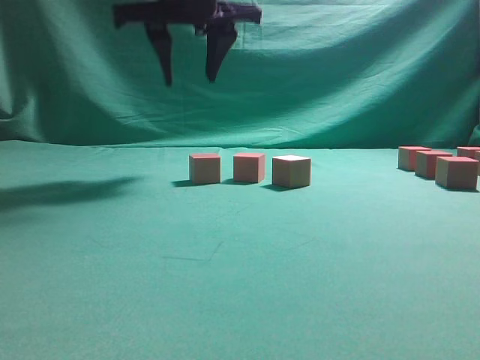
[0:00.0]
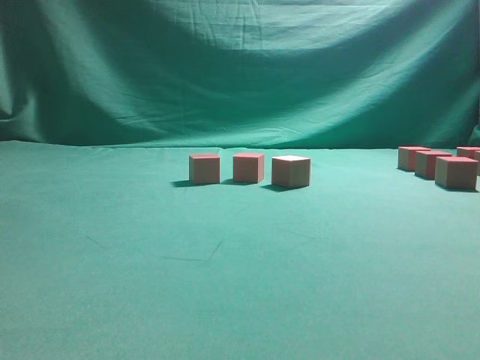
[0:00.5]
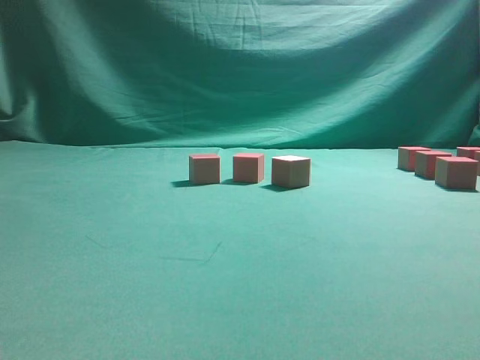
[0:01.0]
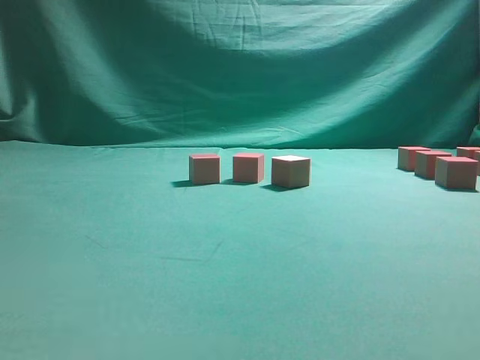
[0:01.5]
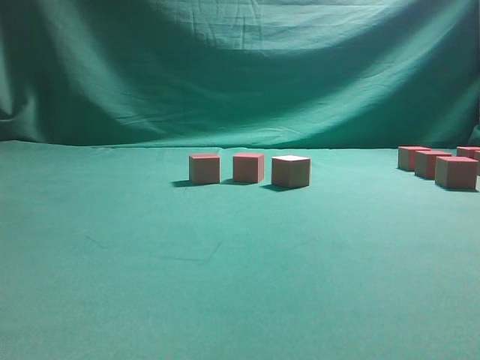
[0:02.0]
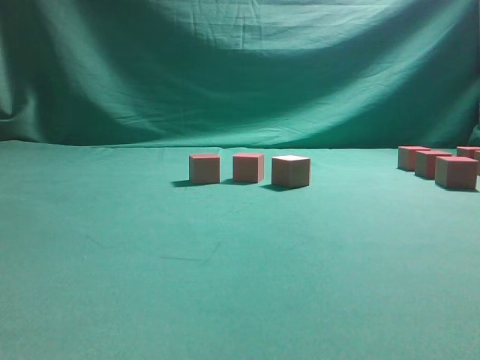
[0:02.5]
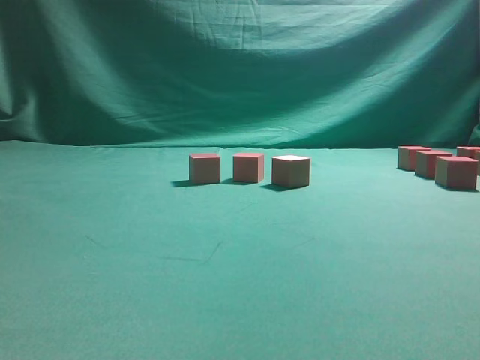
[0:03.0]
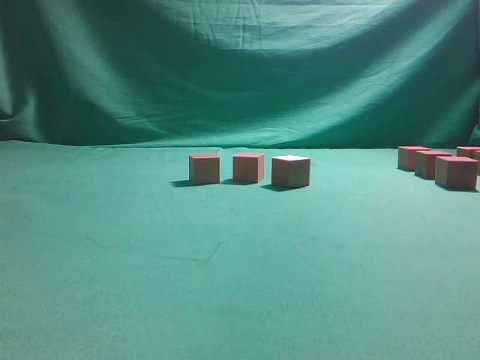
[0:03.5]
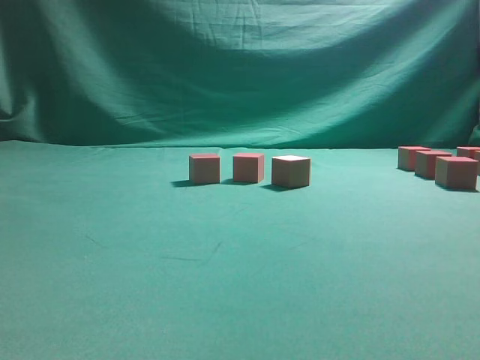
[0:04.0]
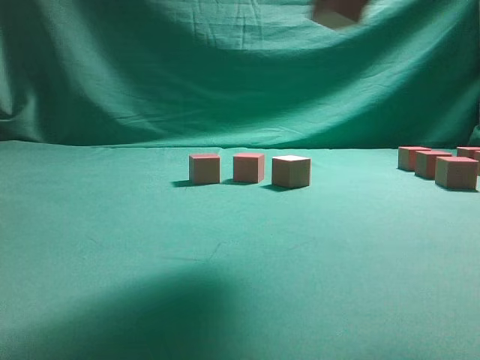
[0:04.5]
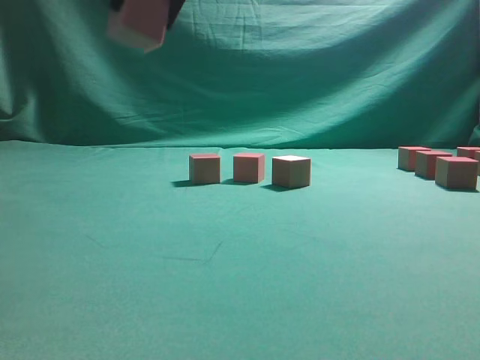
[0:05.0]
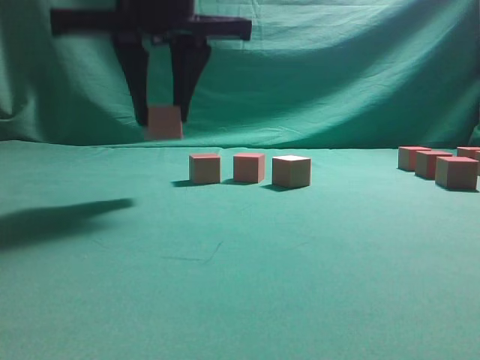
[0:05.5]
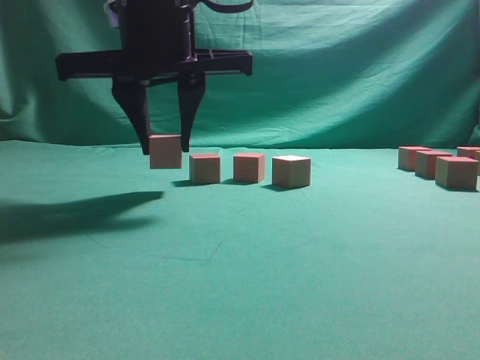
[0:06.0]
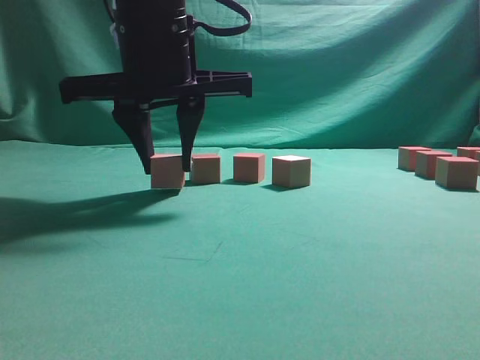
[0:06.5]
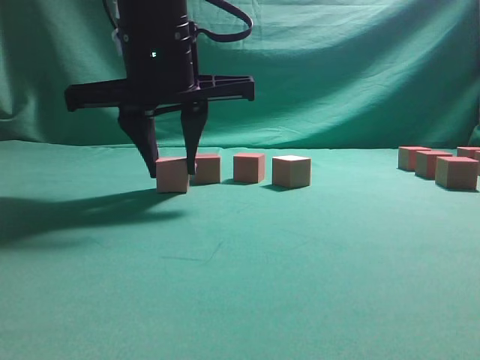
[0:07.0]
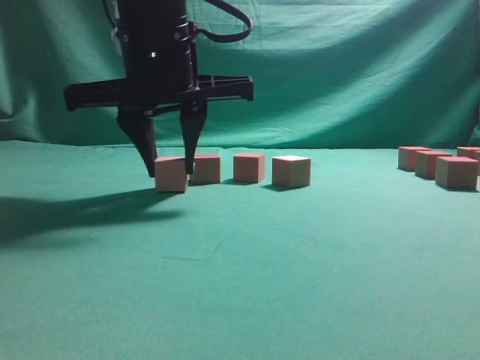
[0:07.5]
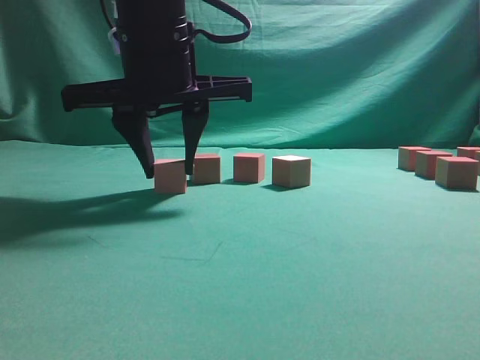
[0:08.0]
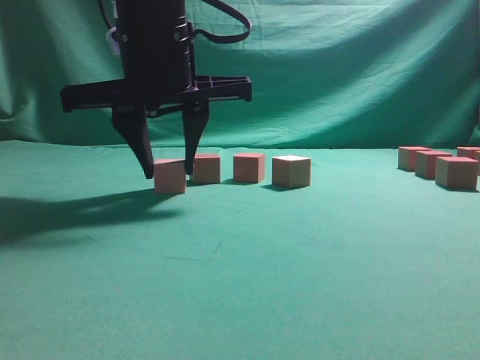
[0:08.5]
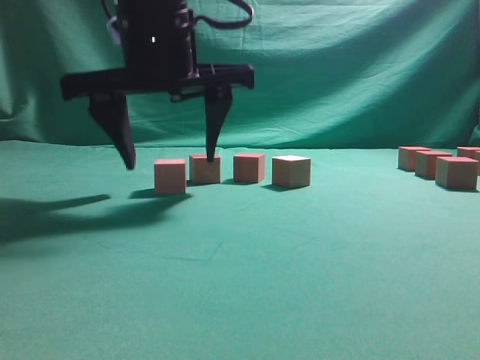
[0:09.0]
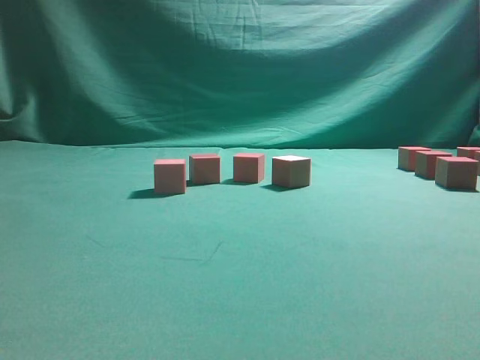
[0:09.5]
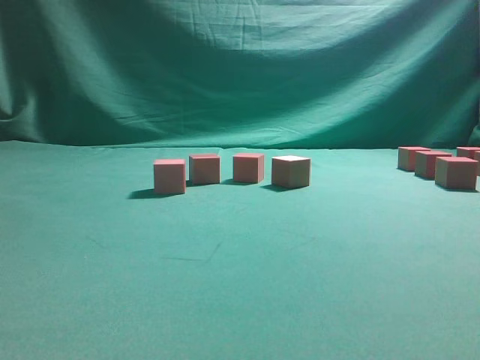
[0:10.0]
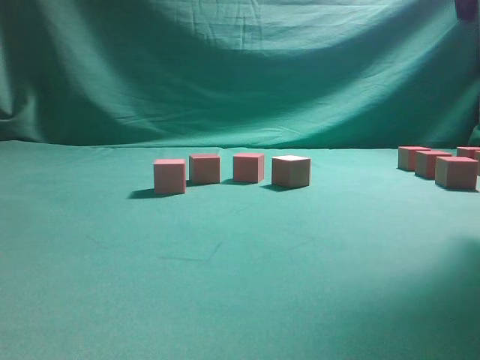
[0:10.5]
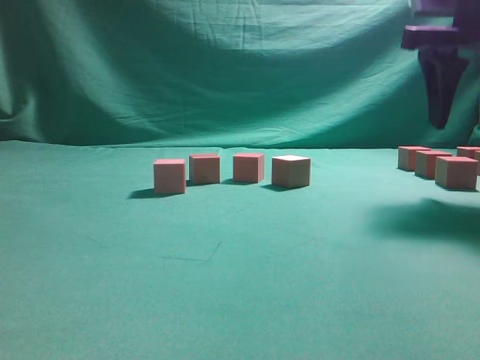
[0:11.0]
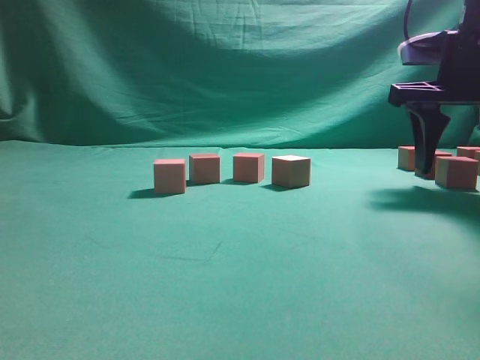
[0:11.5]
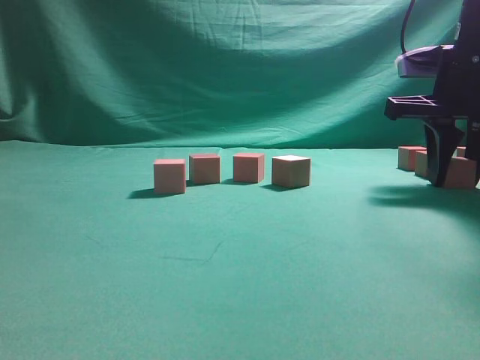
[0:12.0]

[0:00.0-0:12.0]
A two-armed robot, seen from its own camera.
Task of the whole recording: pick up the multiple cubes in two columns one by one and place them in another position on the table.
Step, 0:04.5 to 0:09.0: Place the block at the correct position to assemble the letter S.
0:00.0 to 0:02.0: The right gripper moves to the right and backward, roughly 35 cm.
0:04.0 to 0:06.0: The right gripper goes some 35 cm to the left.
0:06.0 to 0:08.0: The grippers move only a little.
0:08.0 to 0:10.0: The right gripper is displaced upward and to the right by roughly 35 cm, and opens its fingers.
0:10.0 to 0:12.0: The right gripper shifts approximately 30 cm downward, and closes its fingers.

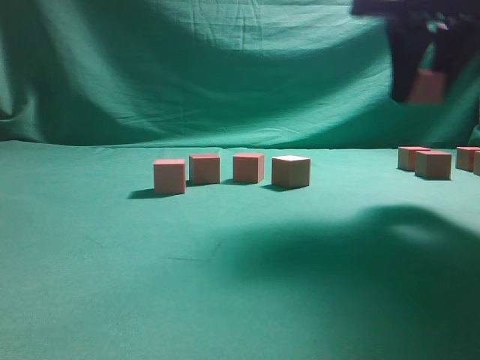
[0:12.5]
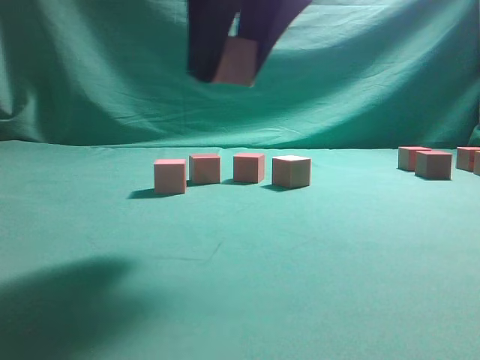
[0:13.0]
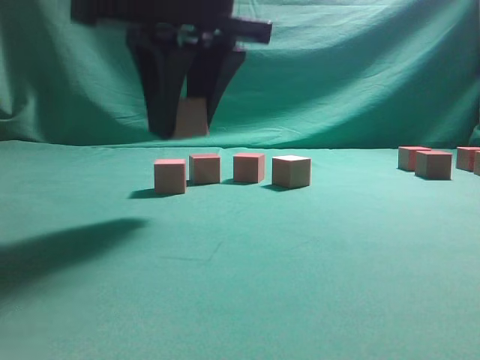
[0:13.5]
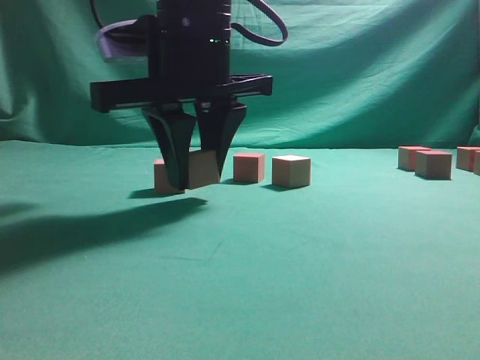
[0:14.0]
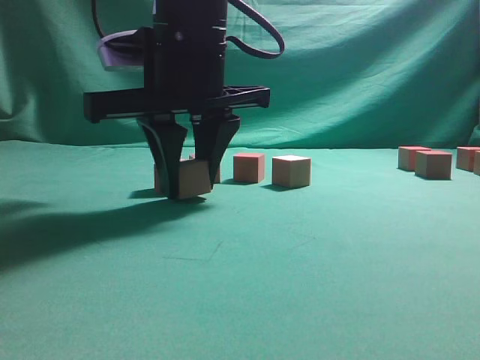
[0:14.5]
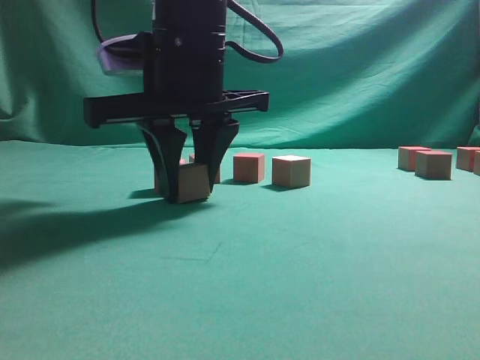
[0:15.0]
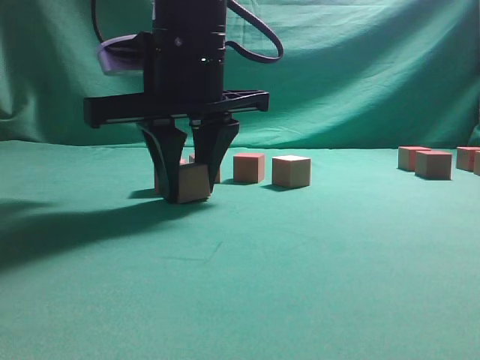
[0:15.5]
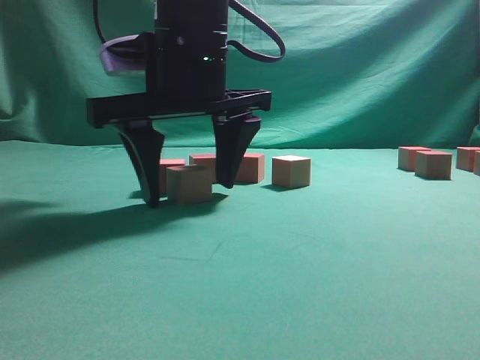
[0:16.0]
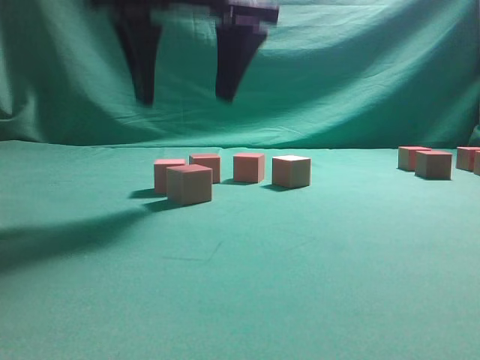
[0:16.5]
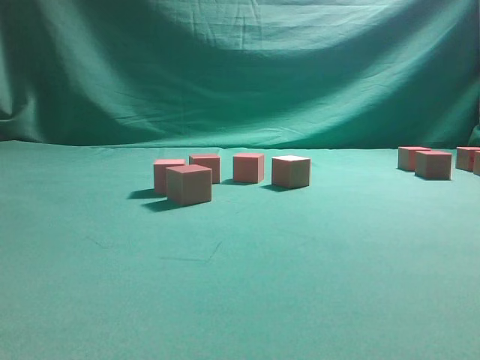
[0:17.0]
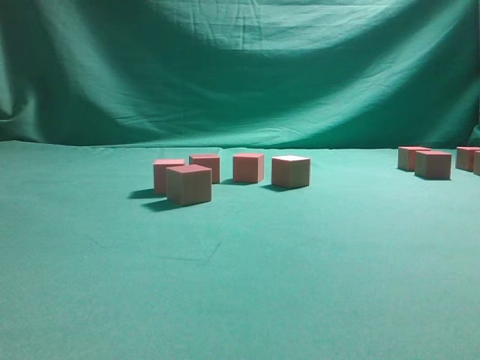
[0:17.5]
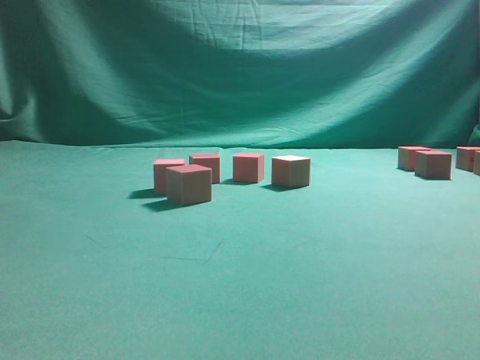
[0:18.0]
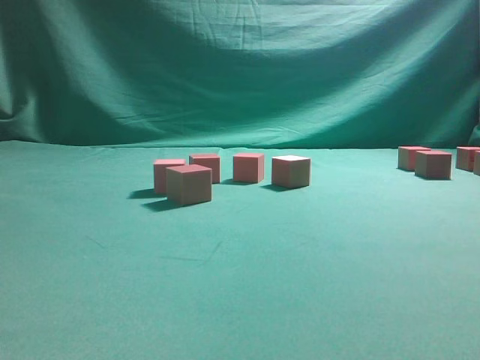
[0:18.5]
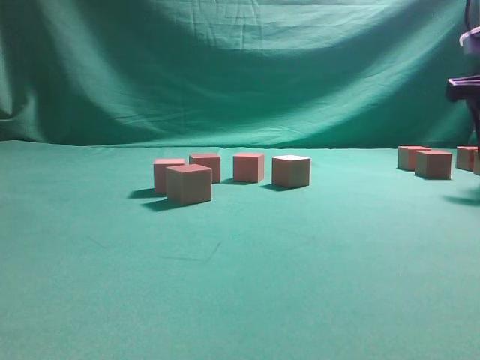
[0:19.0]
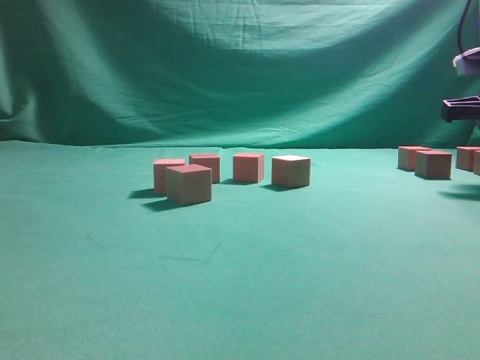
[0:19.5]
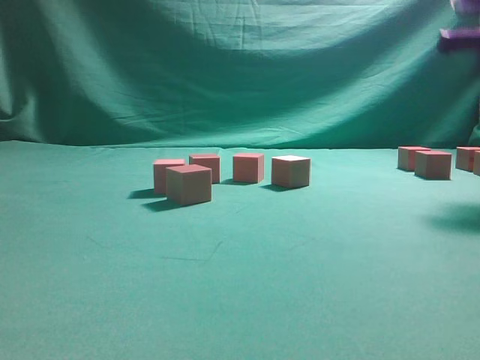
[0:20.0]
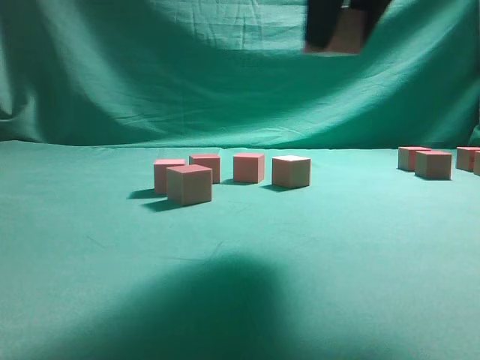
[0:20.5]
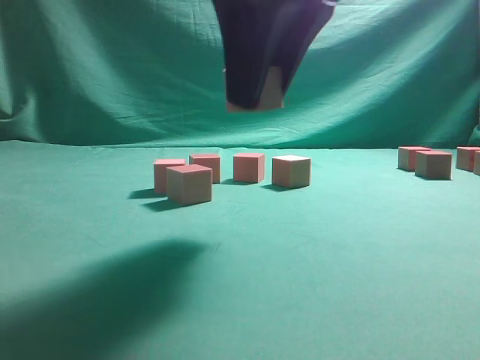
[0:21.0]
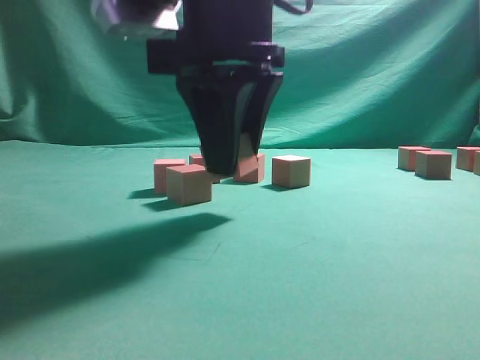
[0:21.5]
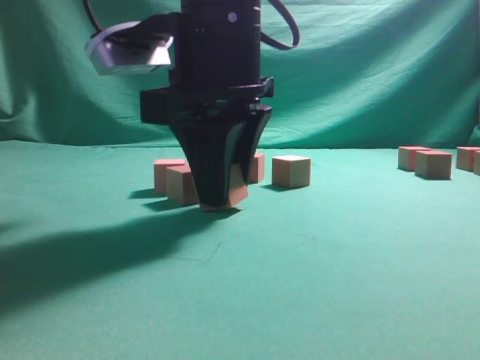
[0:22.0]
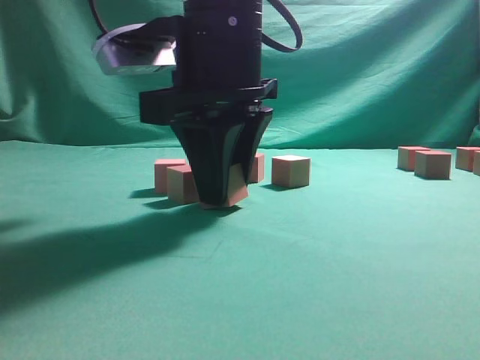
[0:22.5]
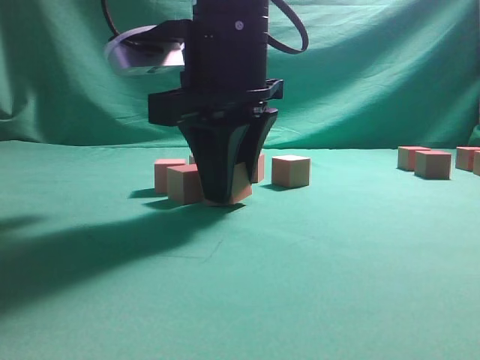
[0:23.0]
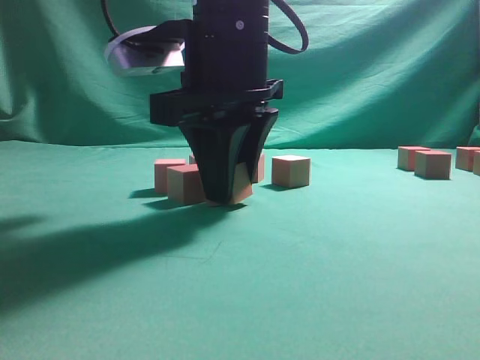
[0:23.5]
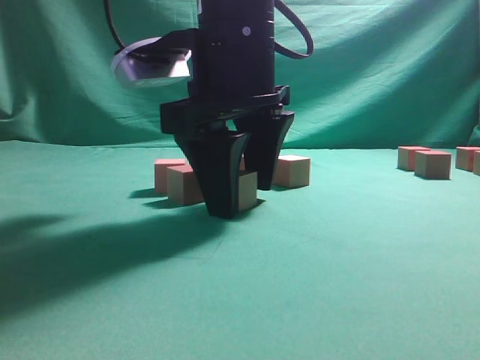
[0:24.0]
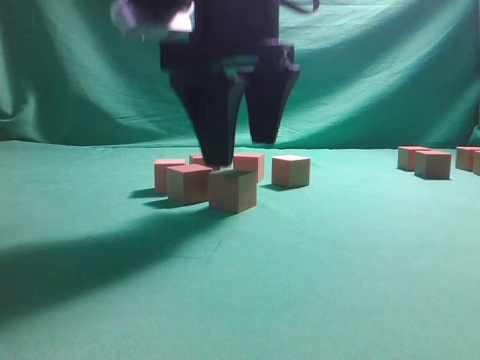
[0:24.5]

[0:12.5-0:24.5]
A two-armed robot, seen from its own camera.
Task of the whole recording: pick up the multiple cubes in two columns one by one and place them in another position on the table.
Step, 0:12.5 to 0:16.5: Place the block at the correct position to assemble the letter S.
Step, 0:17.0 to 0:20.0: Pick up the block on the table.
0:12.5 to 0:14.5: The right gripper is displaced to the left by some 20 cm.
0:14.5 to 0:16.5: The right gripper heads upward, covering some 10 cm, and opens up.
0:16.5 to 0:18.5: The right gripper goes some 30 cm to the right.
0:18.5 to 0:20.5: The right gripper shifts roughly 20 cm to the left, and closes.
0:20.5 to 0:22.5: The right gripper shifts about 15 cm downward, to the left and forward.
0:22.5 to 0:24.5: The right gripper opens.

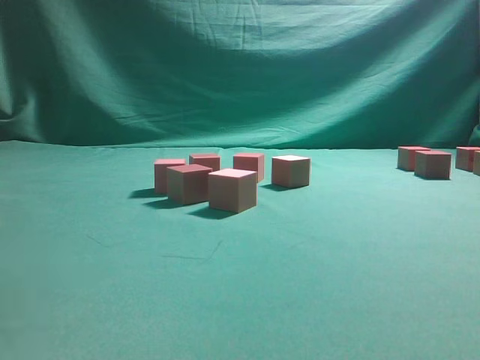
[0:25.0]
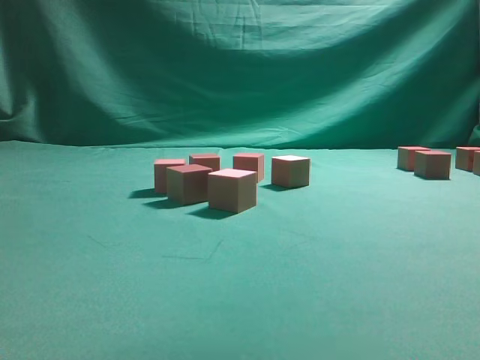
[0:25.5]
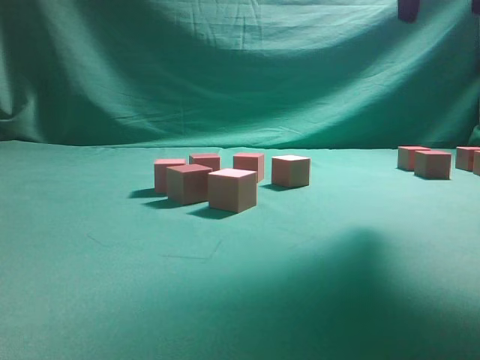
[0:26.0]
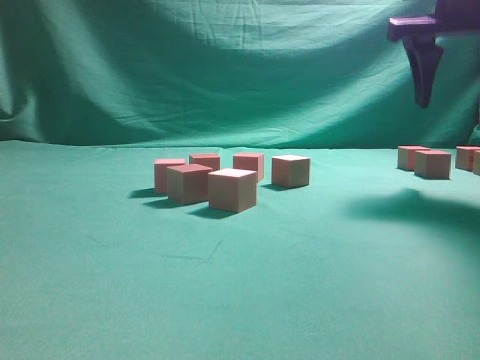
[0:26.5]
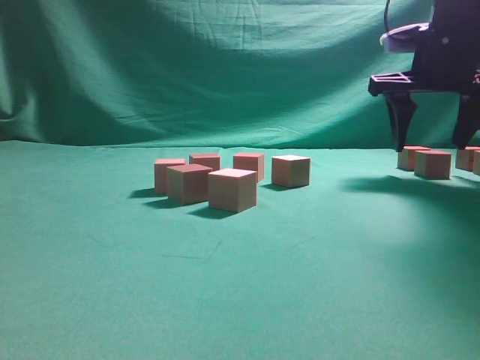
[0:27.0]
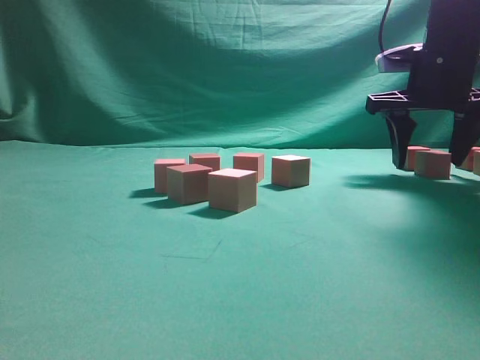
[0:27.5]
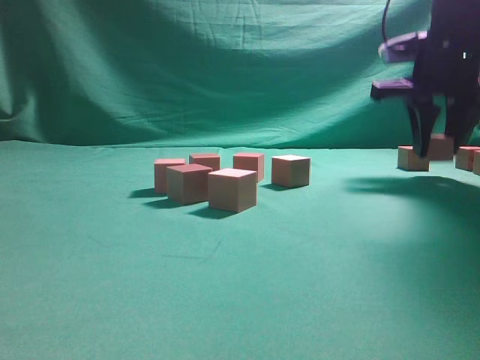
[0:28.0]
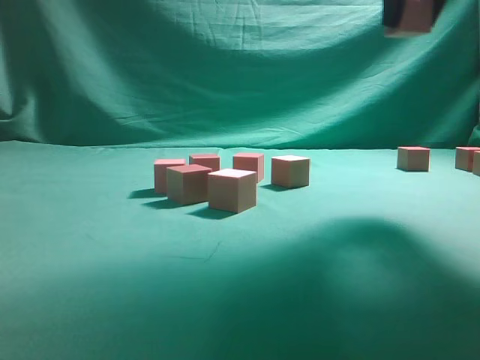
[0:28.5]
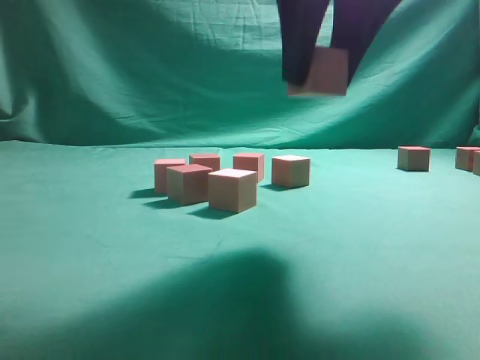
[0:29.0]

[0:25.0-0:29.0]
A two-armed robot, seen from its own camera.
Task of the whole recording: pick up the multiple cubes in two columns one by one and place them in another position on the table.
Step, 0:25.0 to 0:28.0: Pick up the block on the table.
0:25.0 to 0:27.0: The right gripper travels to the right, downward and forward by roughly 30 cm.
0:27.0 to 0:29.0: The right gripper heads backward and to the left, covering some 25 cm, and closes.
